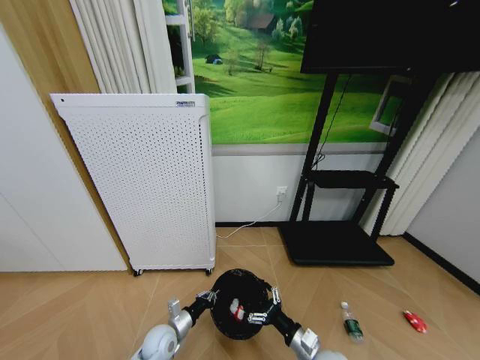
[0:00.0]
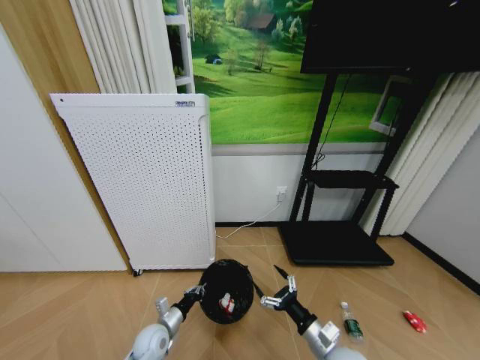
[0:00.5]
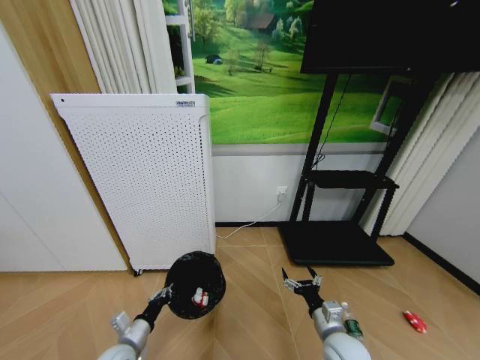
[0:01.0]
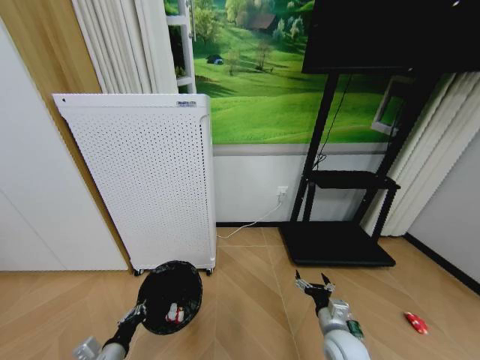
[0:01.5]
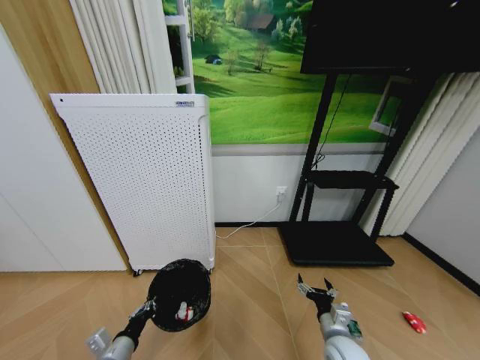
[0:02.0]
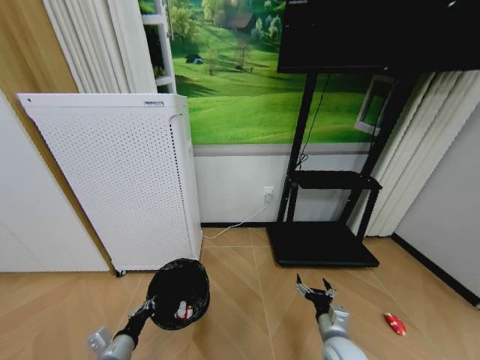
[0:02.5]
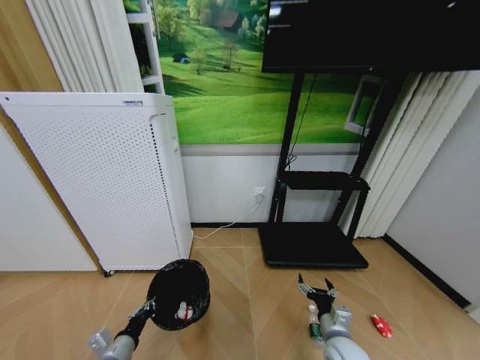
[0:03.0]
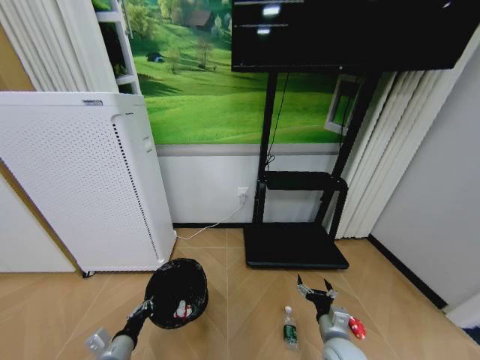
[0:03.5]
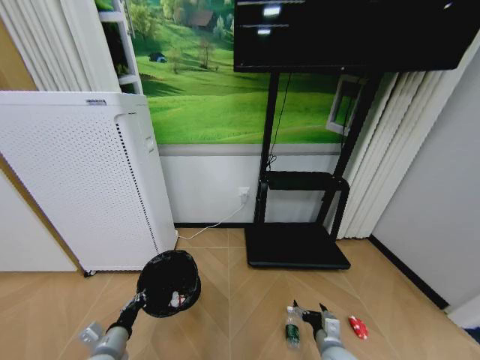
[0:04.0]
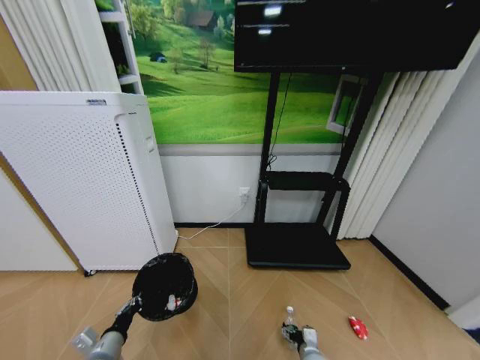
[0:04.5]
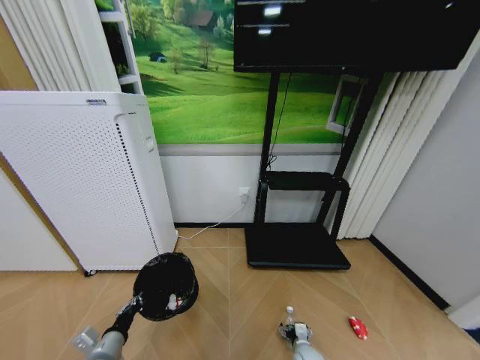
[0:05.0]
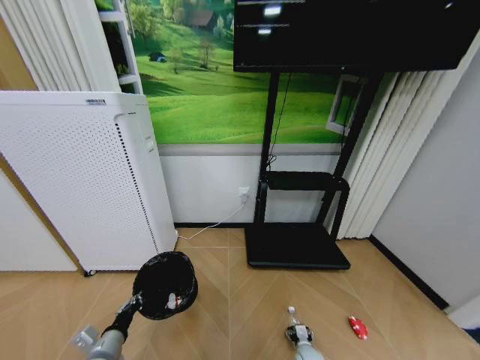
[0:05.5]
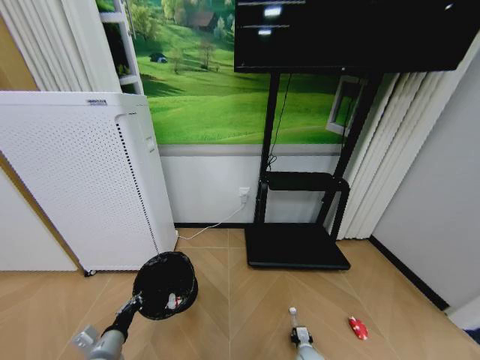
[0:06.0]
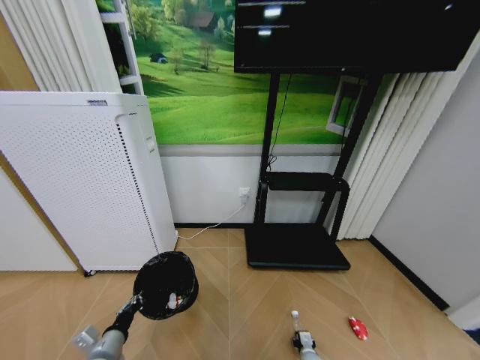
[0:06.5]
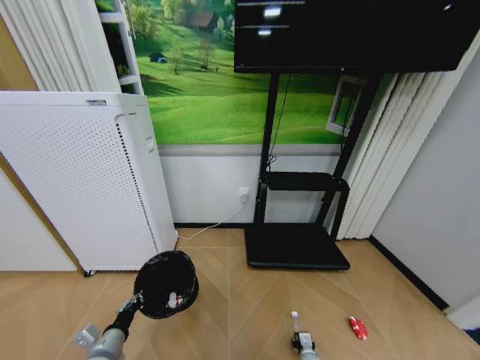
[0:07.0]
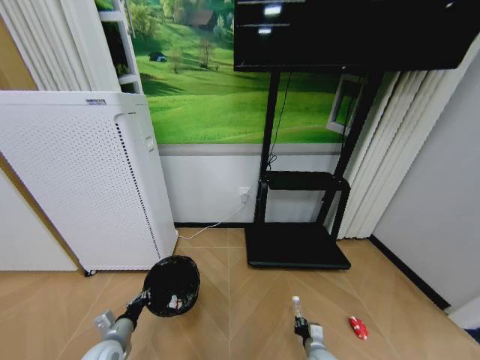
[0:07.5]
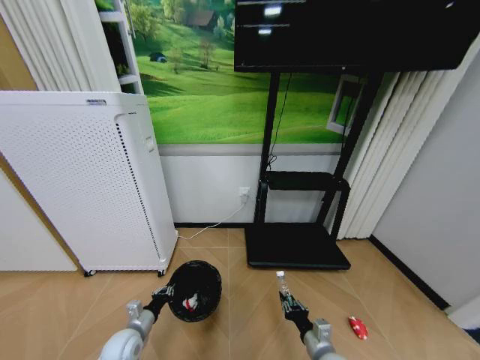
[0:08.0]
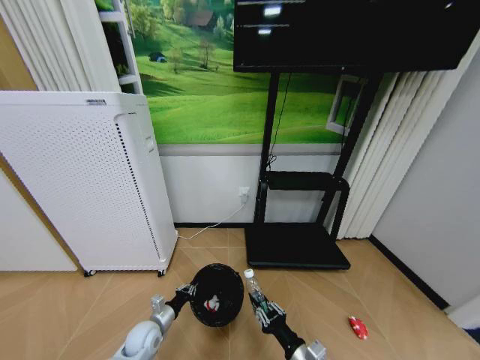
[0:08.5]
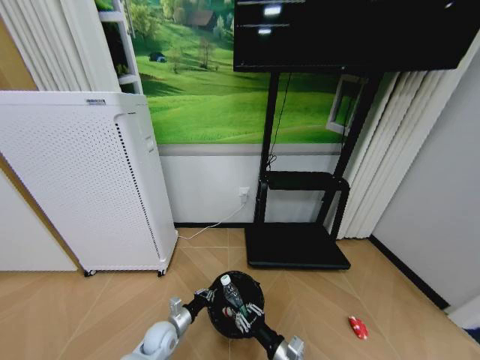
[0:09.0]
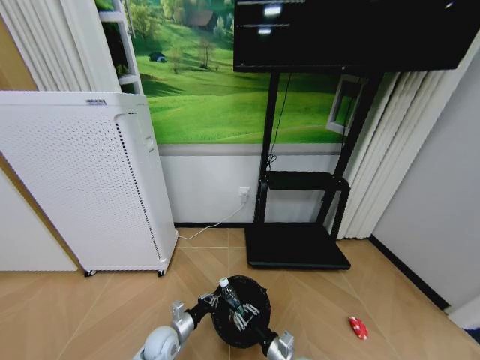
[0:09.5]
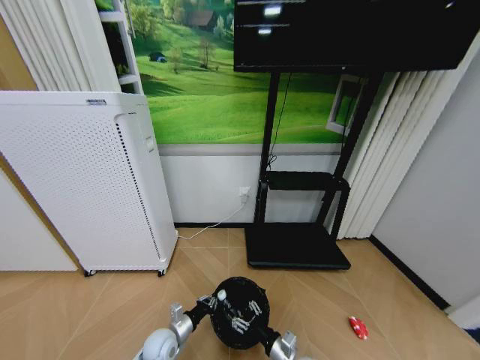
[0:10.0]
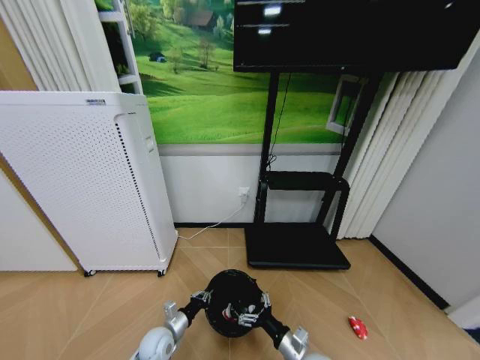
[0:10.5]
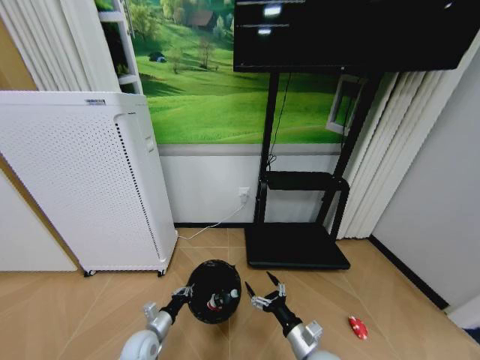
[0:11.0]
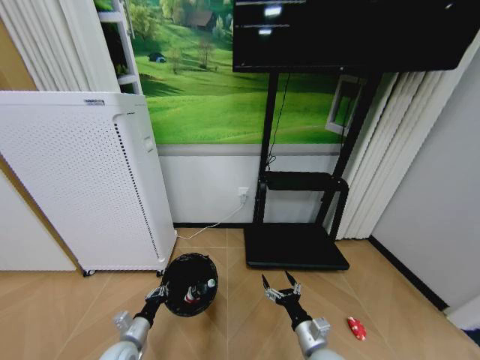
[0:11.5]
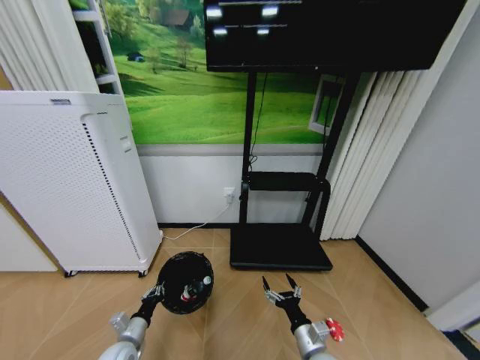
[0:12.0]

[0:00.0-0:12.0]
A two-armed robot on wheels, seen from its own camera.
Task of the whole recording: Pick up the trash bin and place the garbage on the floor into it.
0:00.0 to 0:02.0: The left gripper goes about 15 cm backward, upward and to the left; the right gripper shifts by about 5 cm.
0:04.0 to 0:06.0: The right gripper travels downward by roughly 20 cm, and closes up.
0:06.0 to 0:08.0: The left gripper travels forward and downward by approximately 10 cm; the right gripper moves upward, about 20 cm.
0:08.0 to 0:10.0: The right gripper moves to the left, roughly 10 cm, and opens. The left gripper moves to the right, about 10 cm.
0:10.0 to 0:12.0: The left gripper is displaced to the left by about 10 cm; the right gripper moves approximately 5 cm, and opens up.

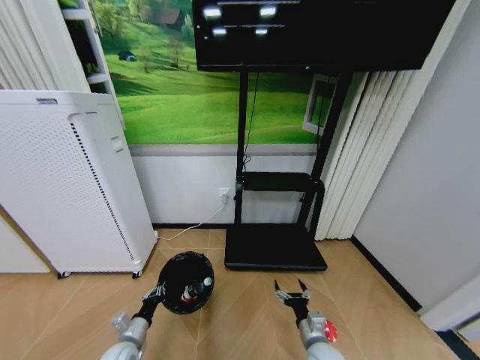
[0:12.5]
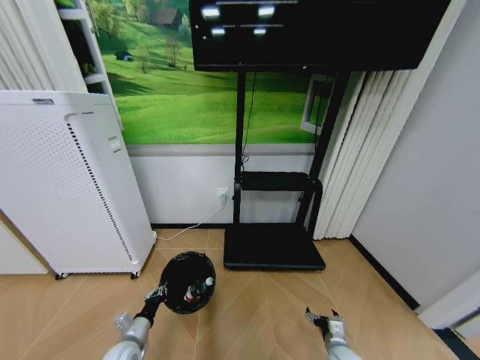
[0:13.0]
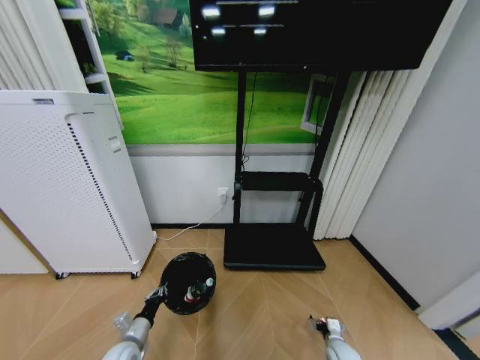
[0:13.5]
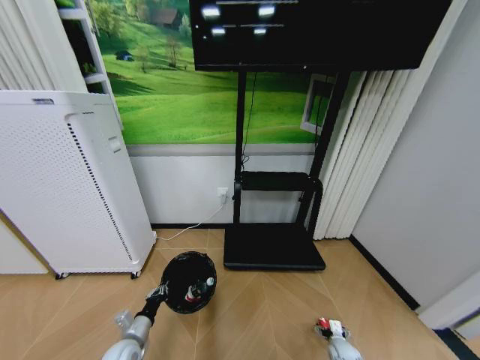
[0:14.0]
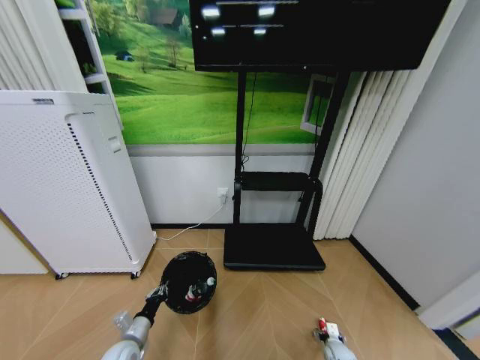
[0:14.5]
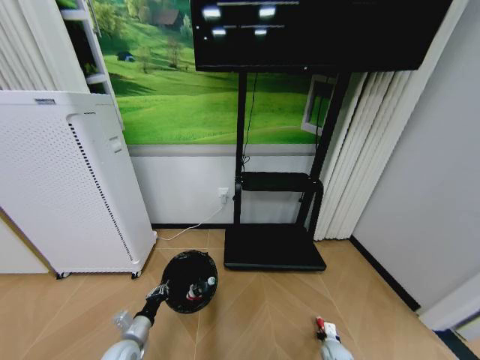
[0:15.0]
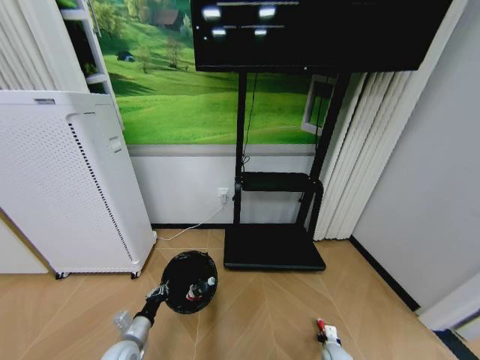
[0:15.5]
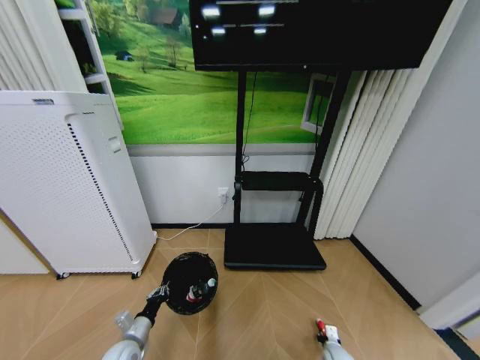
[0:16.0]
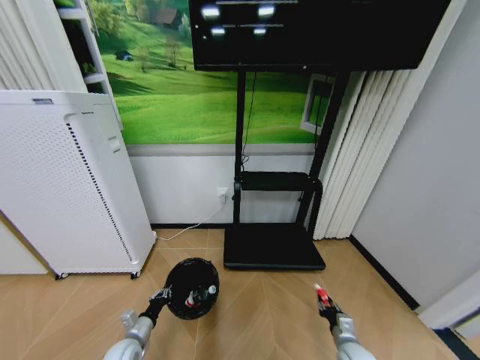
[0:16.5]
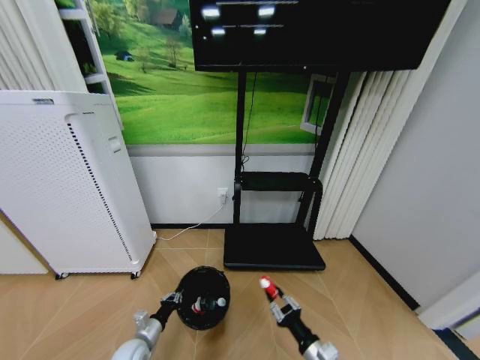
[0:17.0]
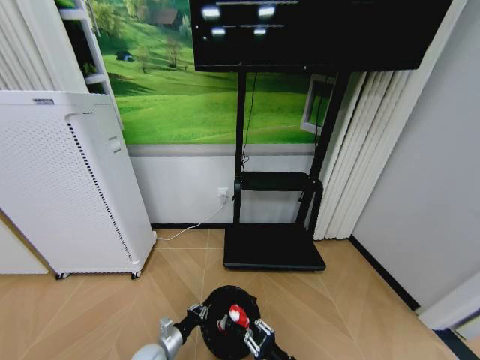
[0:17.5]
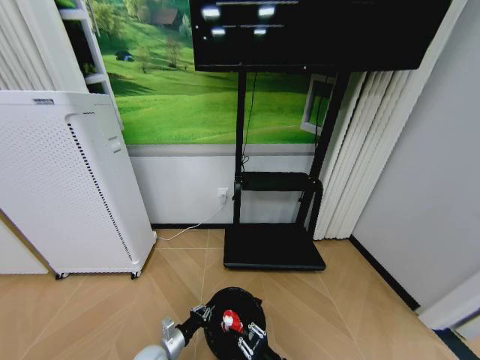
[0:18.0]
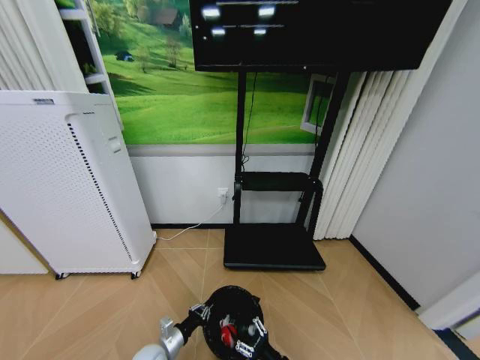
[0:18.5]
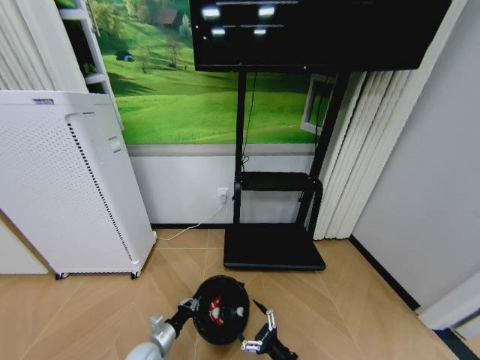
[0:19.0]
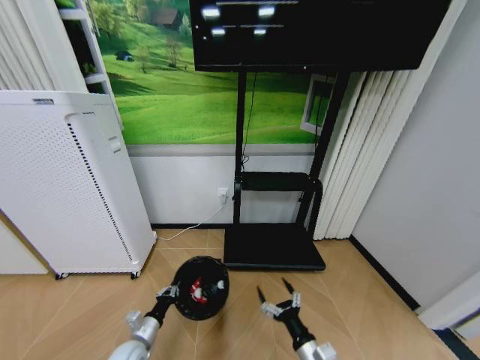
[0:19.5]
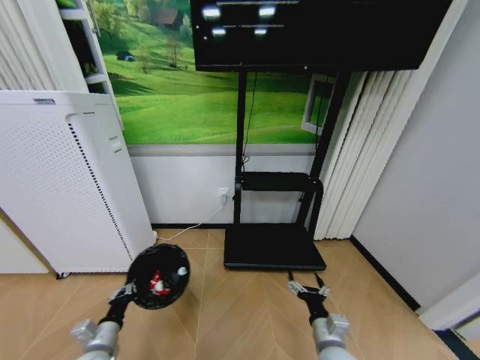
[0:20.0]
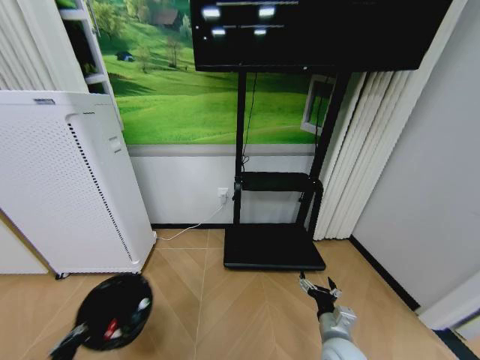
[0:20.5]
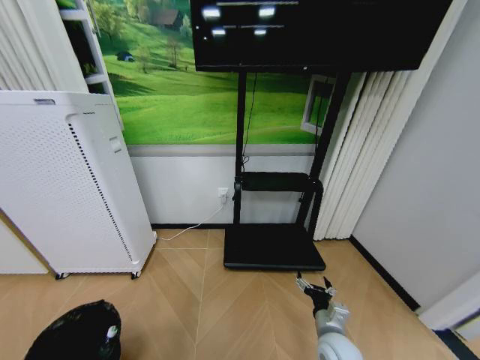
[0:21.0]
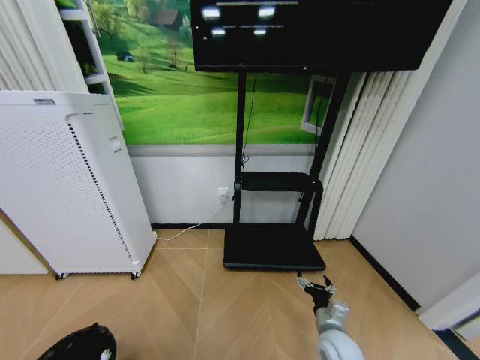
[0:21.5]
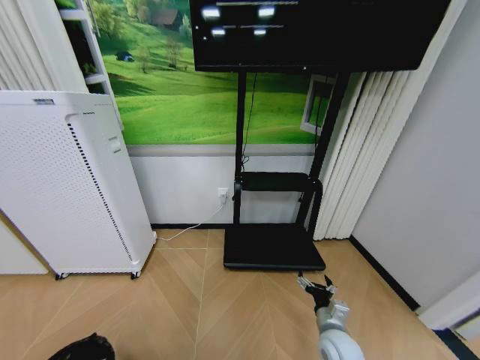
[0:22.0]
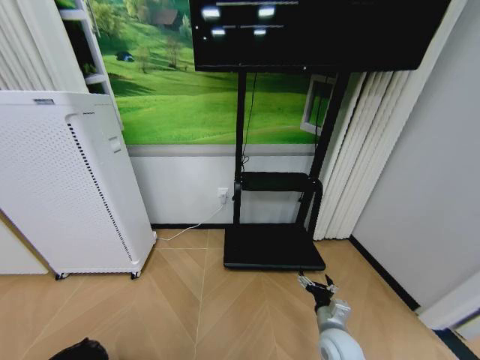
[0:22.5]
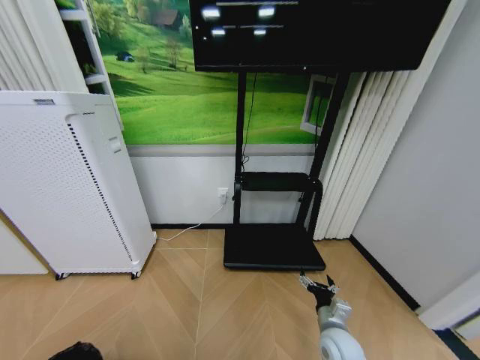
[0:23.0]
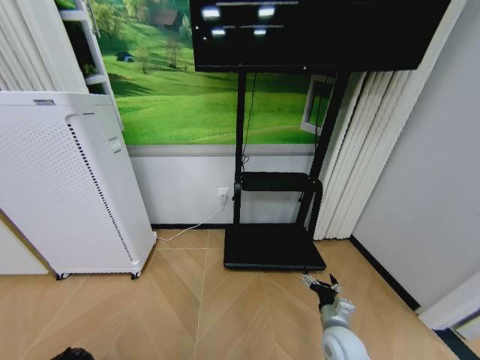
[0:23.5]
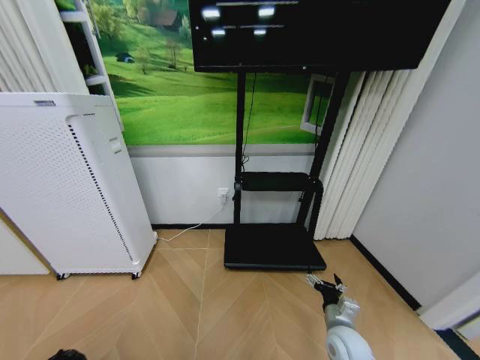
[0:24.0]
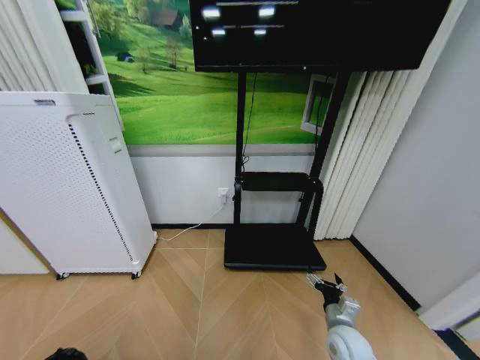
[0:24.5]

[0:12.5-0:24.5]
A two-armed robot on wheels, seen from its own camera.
Task of the whole recording: Pick up the trash bin and place the garbage on the floor into it.
0:12.5 to 0:14.5: The right gripper travels downward and to the right by some 25 cm.
0:14.5 to 0:16.5: The right gripper heads upward, covering roughly 10 cm, and closes its fingers.
0:16.5 to 0:18.5: The right gripper shifts approximately 20 cm to the left and backward, and opens. Meanwhile the left gripper moves to the right, some 5 cm.
0:18.5 to 0:20.5: The right gripper is displaced upward, forward and to the right by approximately 15 cm, and opens up. Meanwhile the left gripper travels to the left, upward and backward by some 25 cm.
0:20.5 to 0:22.5: The left gripper is displaced backward by about 15 cm.
0:22.5 to 0:24.5: The grippers stay close to where they were, moving slightly.

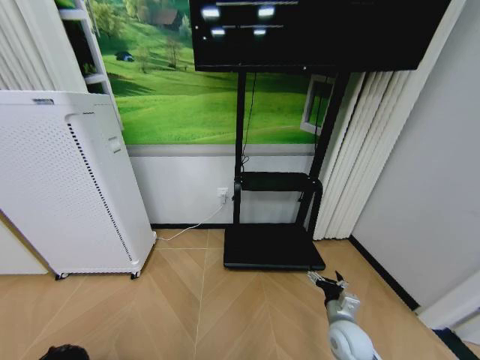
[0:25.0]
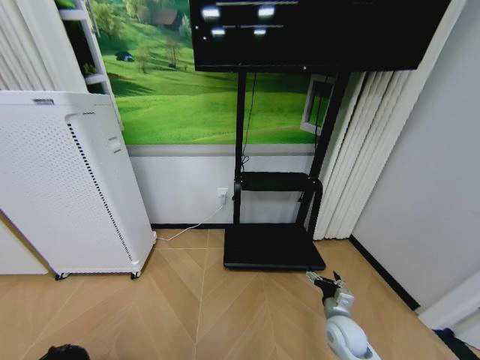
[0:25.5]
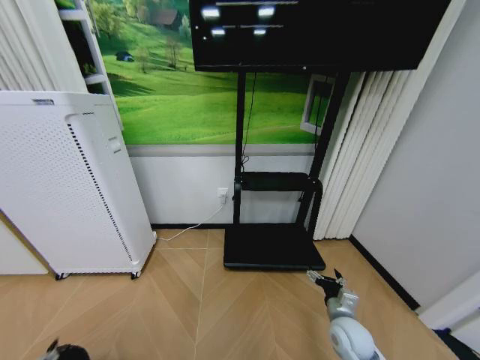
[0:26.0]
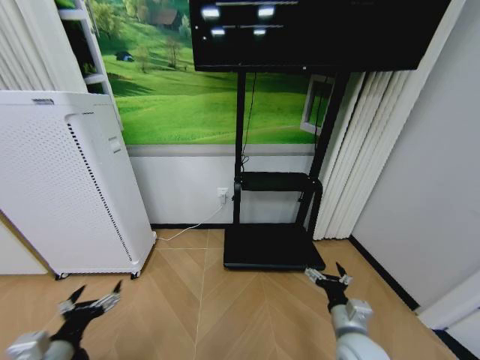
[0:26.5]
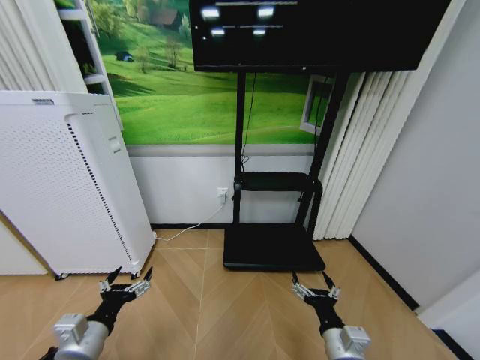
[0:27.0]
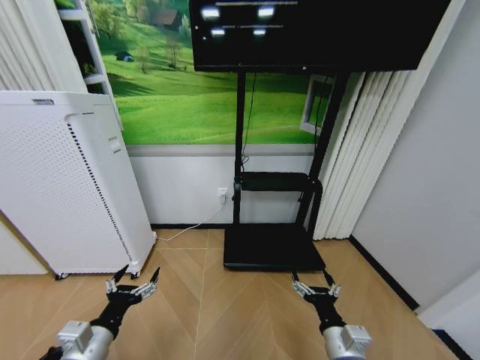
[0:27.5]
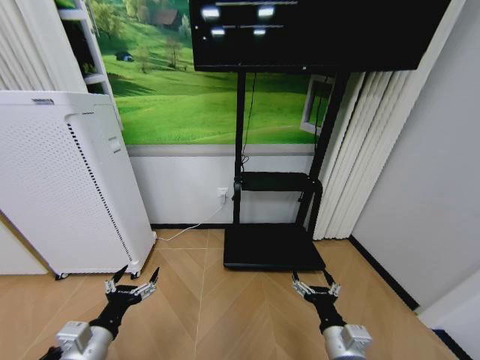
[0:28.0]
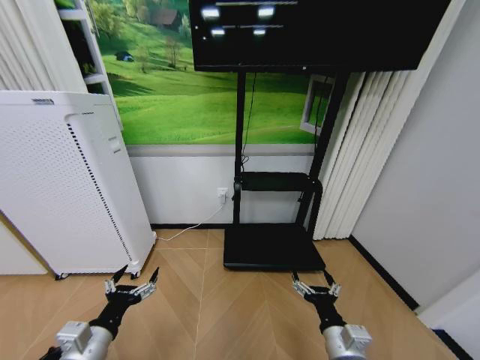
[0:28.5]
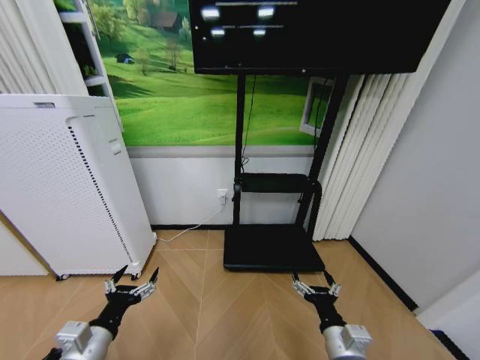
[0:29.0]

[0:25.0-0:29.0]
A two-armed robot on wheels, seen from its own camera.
Task of the whole recording: Pick up the trash bin and place the garbage on the floor into it.
0:25.0 to 0:27.0: The right gripper moves backward, upward and to the left, roughly 15 cm; the left gripper shifts roughly 30 cm forward, upward and to the right, and opens up.
0:27.0 to 0:29.0: There are only small adjustments of the grippers.
